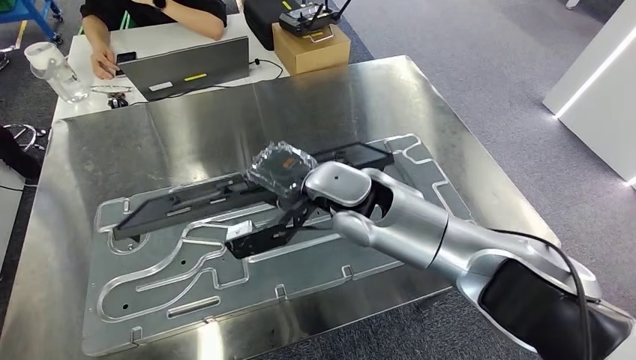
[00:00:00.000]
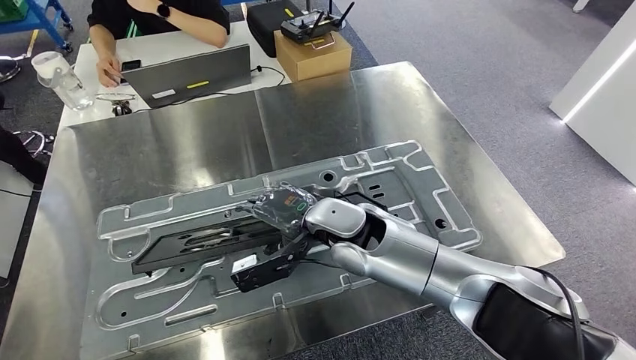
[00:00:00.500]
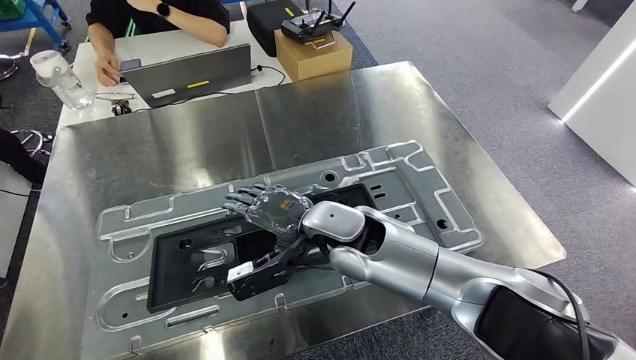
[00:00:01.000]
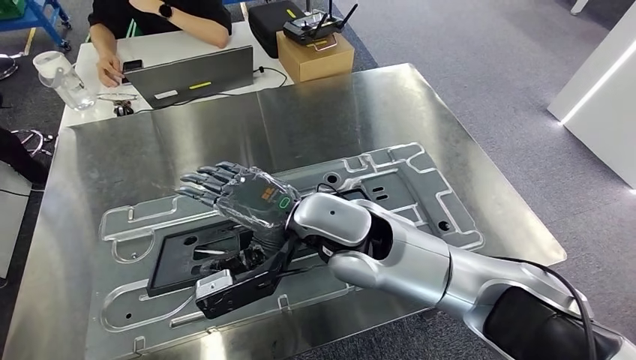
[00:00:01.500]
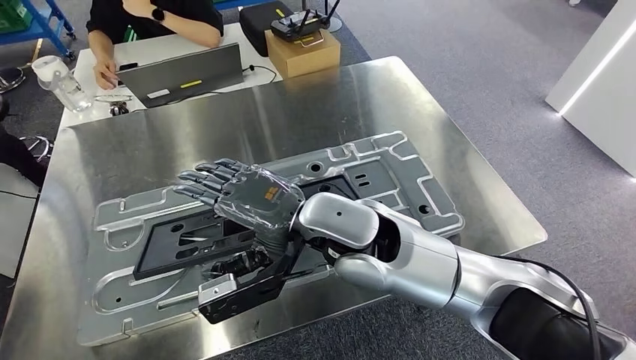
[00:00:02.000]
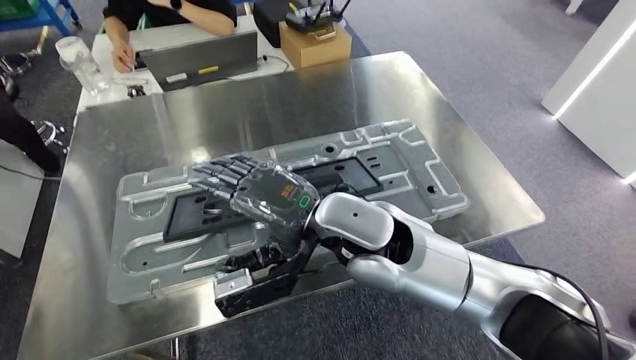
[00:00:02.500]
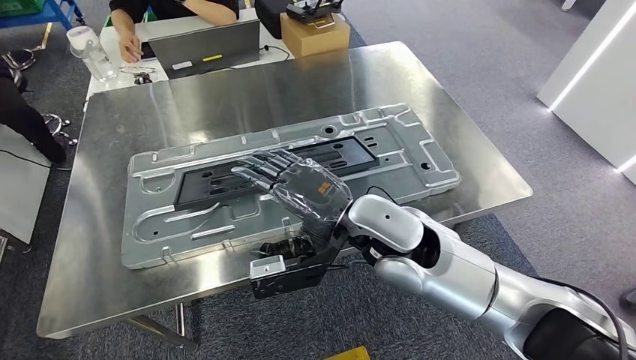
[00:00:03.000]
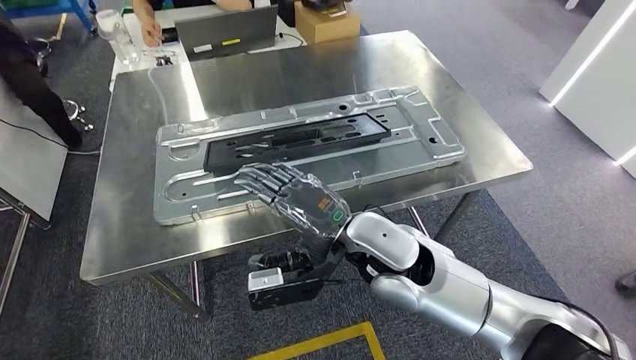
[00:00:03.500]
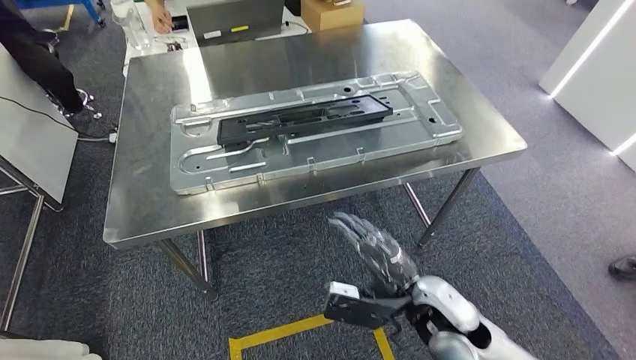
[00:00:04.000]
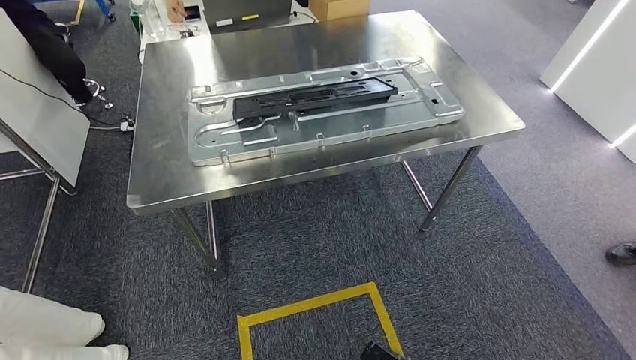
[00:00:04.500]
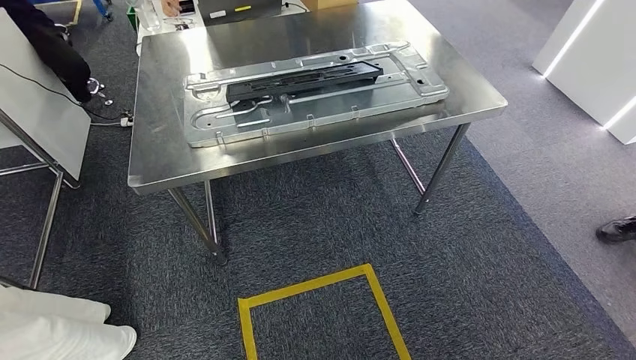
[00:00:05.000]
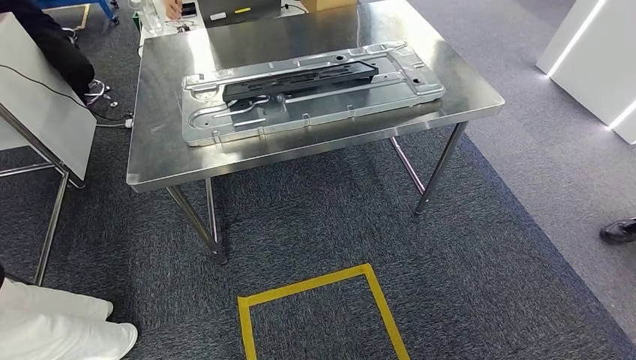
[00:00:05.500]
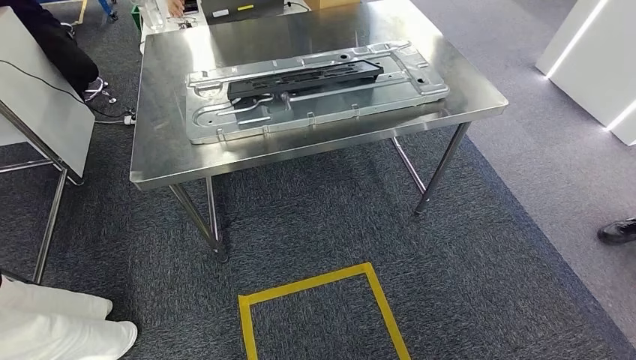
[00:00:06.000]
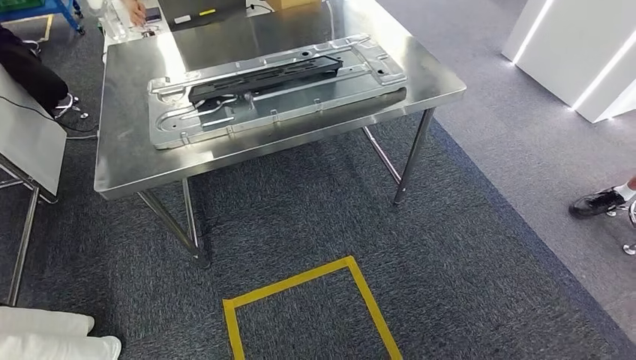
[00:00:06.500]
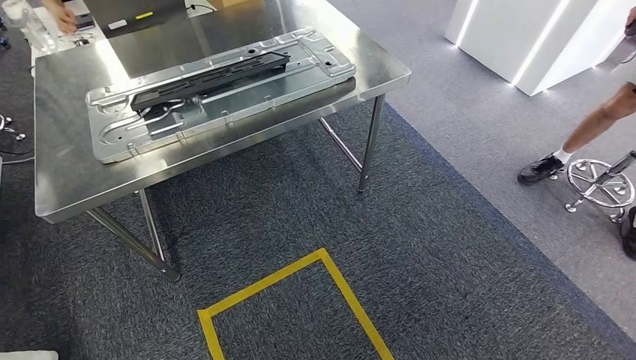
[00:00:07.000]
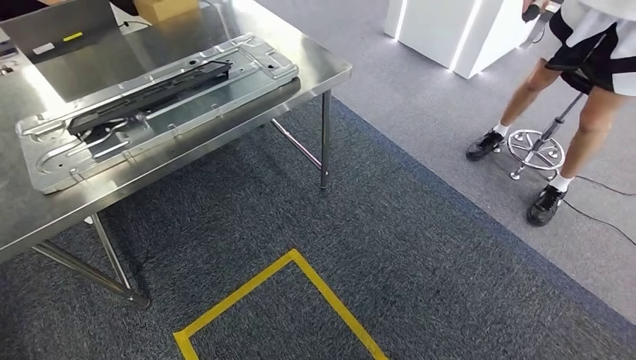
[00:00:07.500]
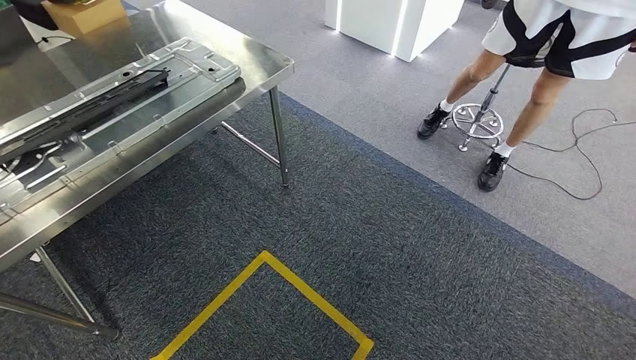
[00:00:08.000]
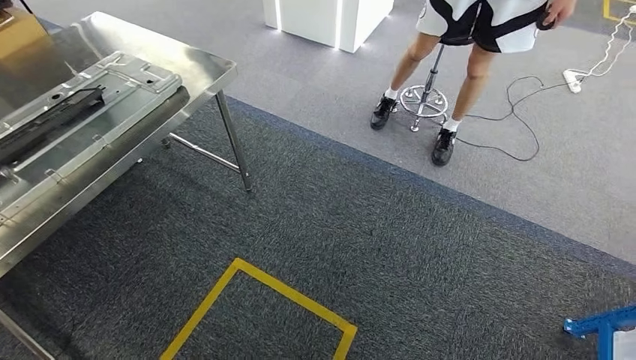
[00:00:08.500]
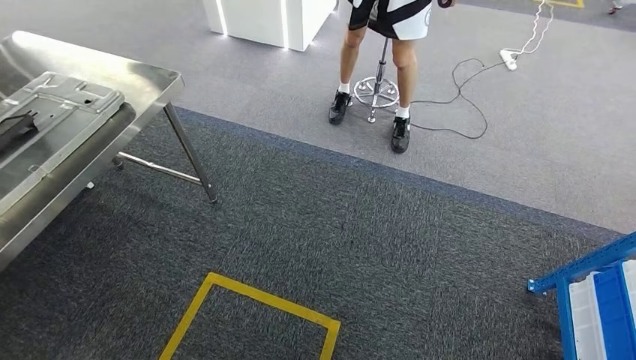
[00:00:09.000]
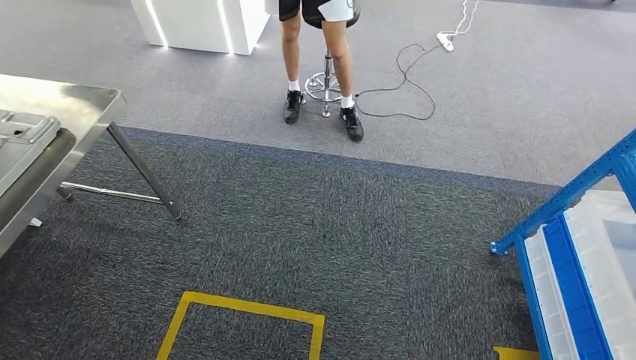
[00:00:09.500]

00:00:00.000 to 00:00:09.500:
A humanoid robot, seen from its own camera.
Step, 00:00:00.500 to 00:00:03.000: Insert the large material into the corresponding slot on the workbench.

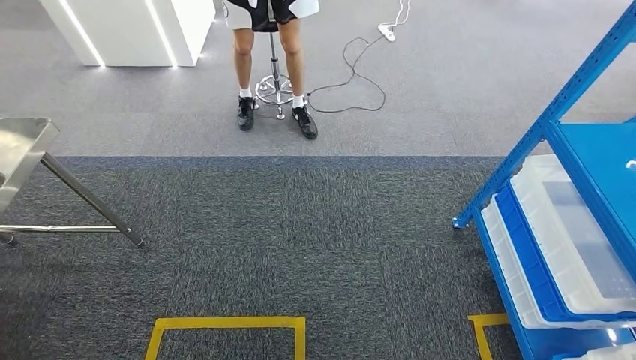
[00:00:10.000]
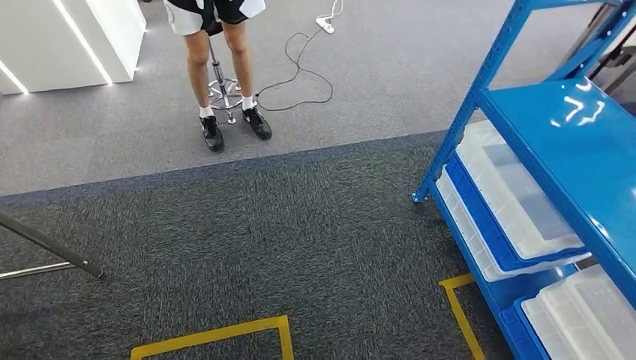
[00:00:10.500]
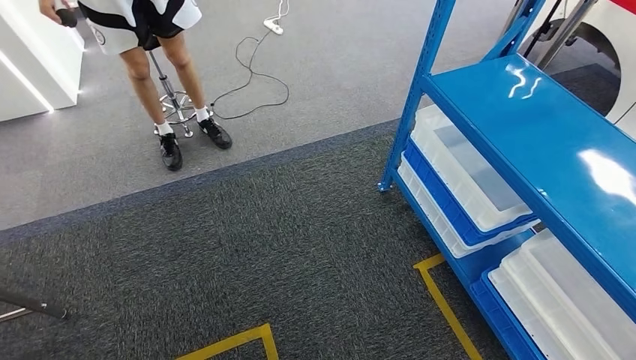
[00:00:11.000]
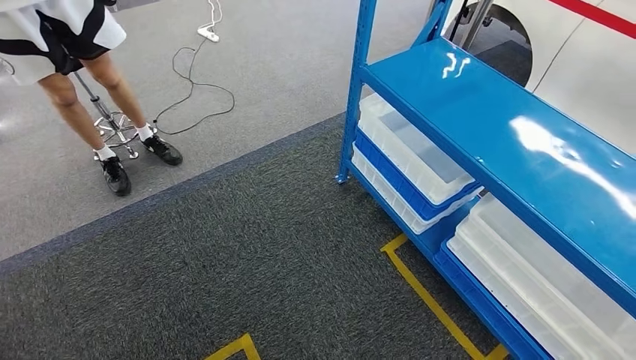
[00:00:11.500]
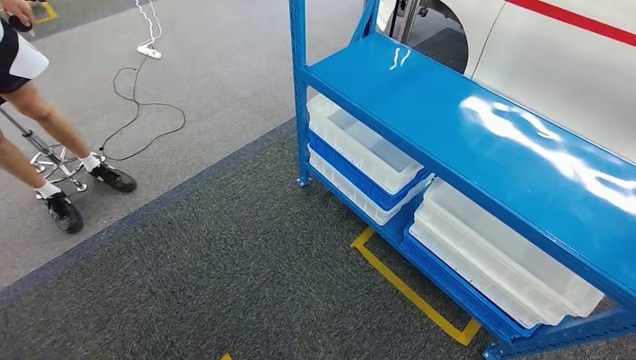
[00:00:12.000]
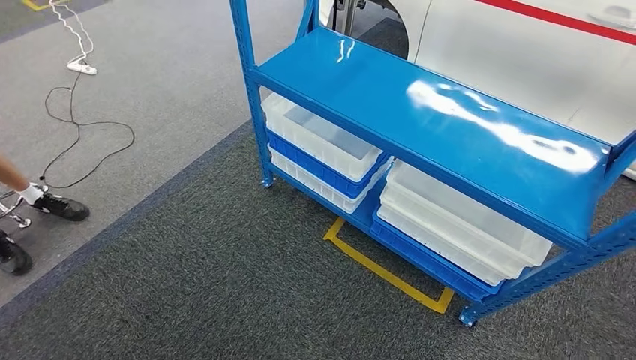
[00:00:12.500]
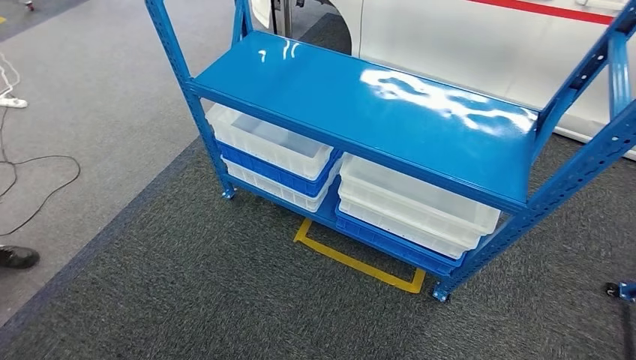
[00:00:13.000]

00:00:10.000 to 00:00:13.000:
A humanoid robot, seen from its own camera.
Step, 00:00:10.000 to 00:00:13.000: Move to the initial position of the shelf.
